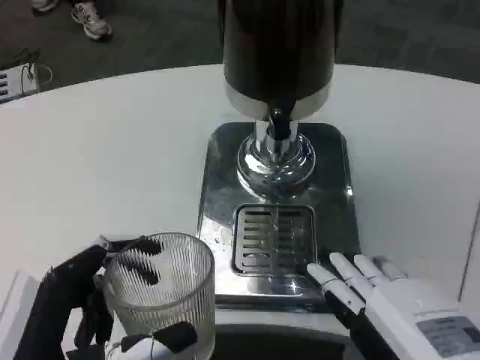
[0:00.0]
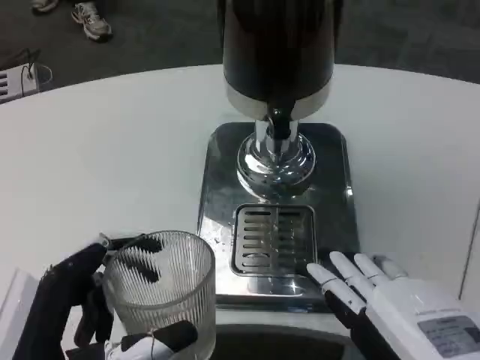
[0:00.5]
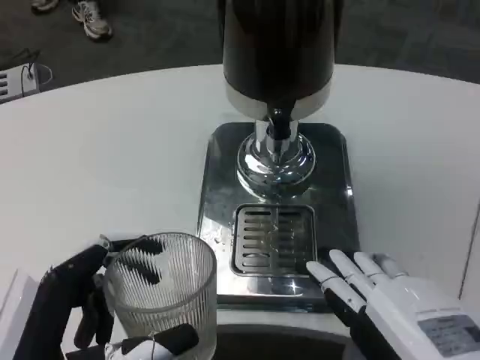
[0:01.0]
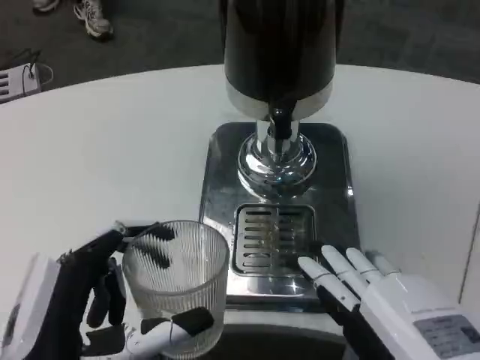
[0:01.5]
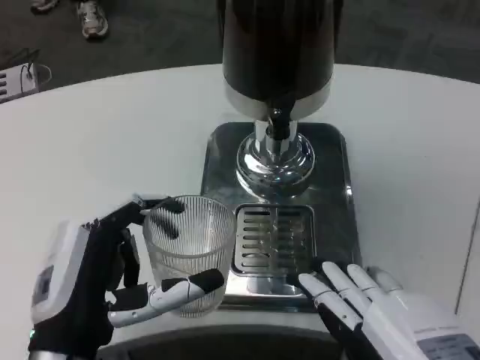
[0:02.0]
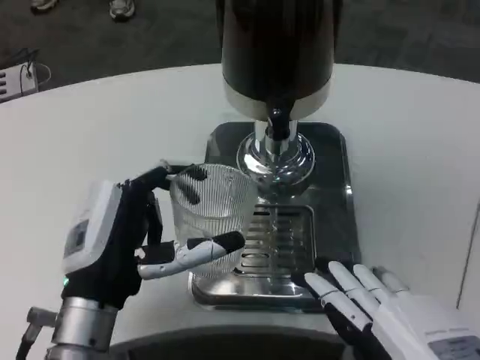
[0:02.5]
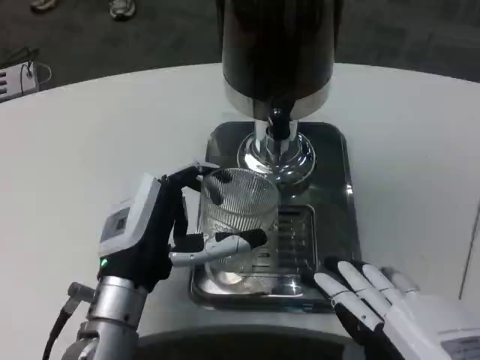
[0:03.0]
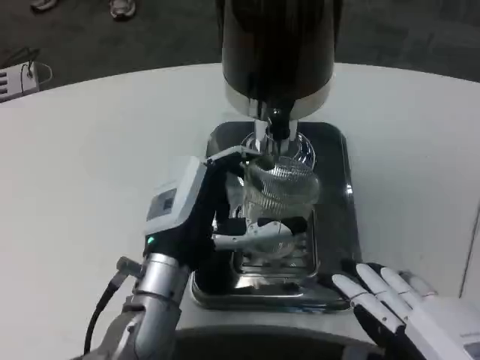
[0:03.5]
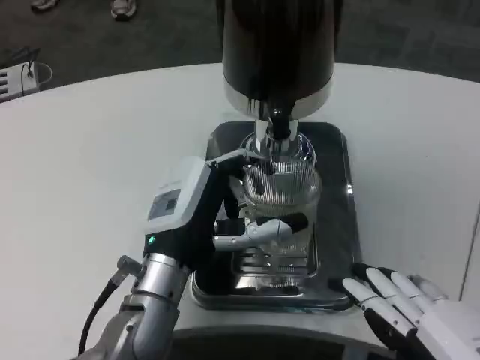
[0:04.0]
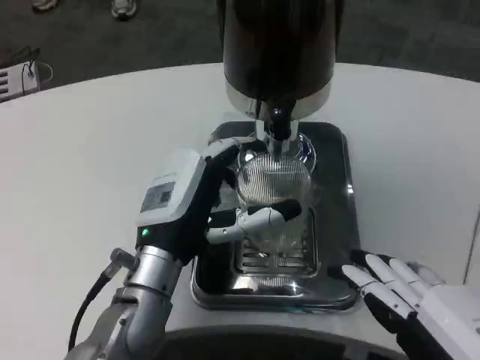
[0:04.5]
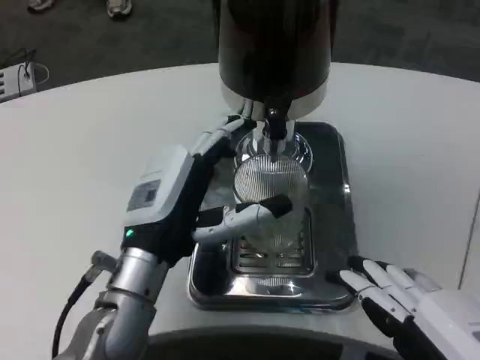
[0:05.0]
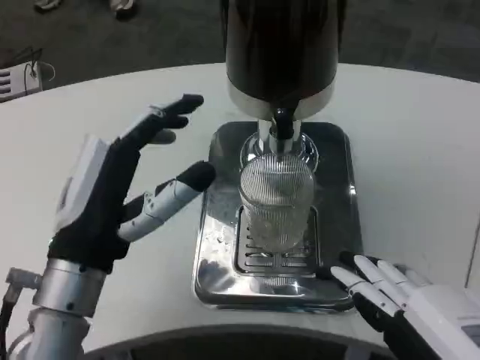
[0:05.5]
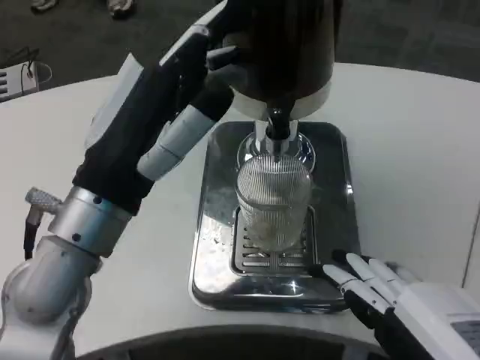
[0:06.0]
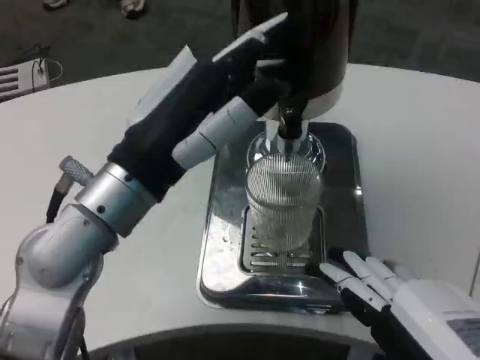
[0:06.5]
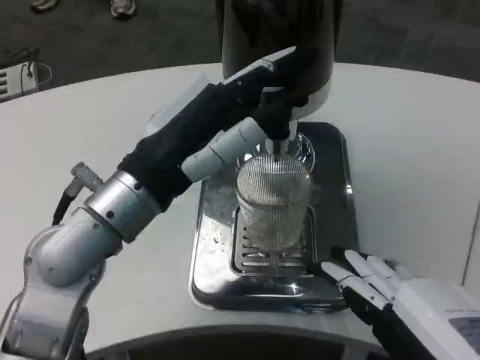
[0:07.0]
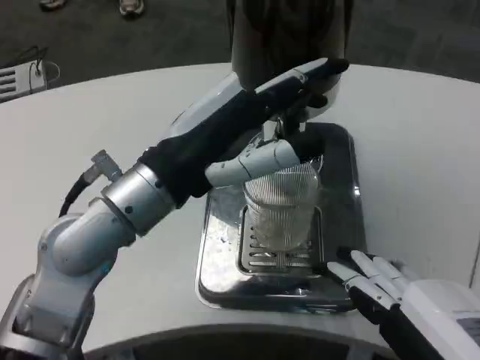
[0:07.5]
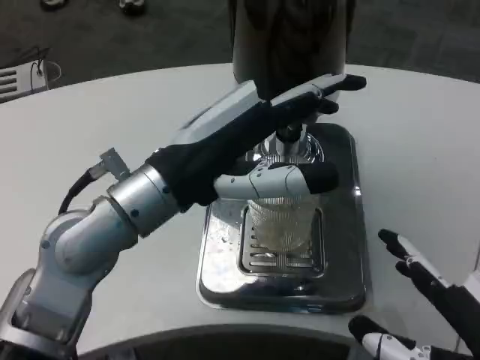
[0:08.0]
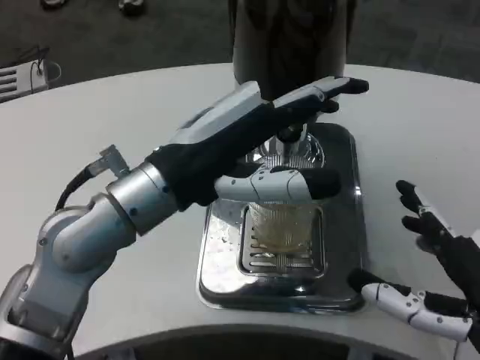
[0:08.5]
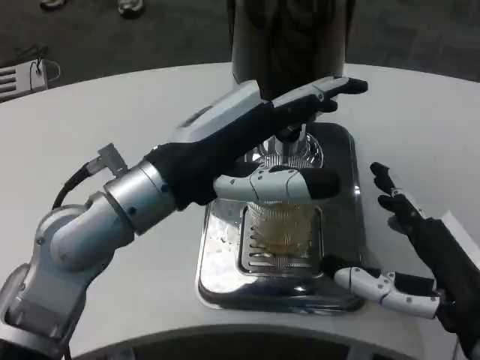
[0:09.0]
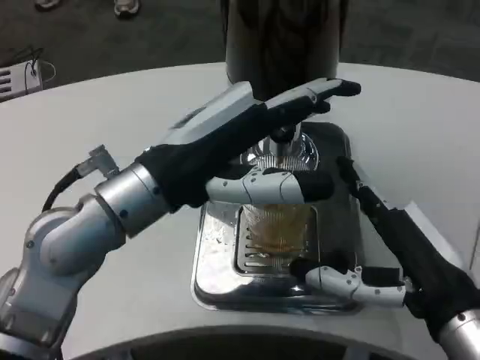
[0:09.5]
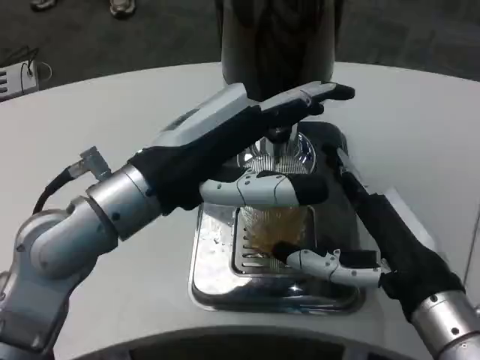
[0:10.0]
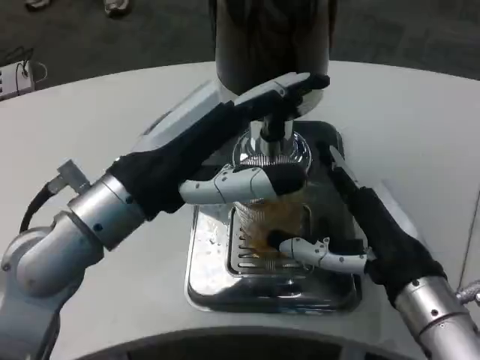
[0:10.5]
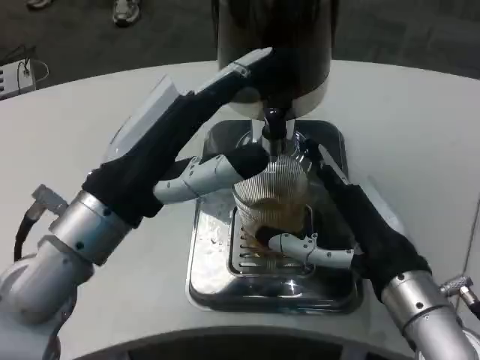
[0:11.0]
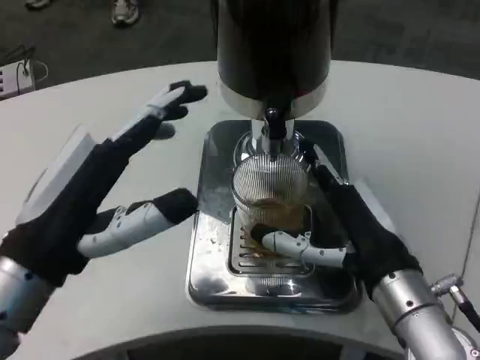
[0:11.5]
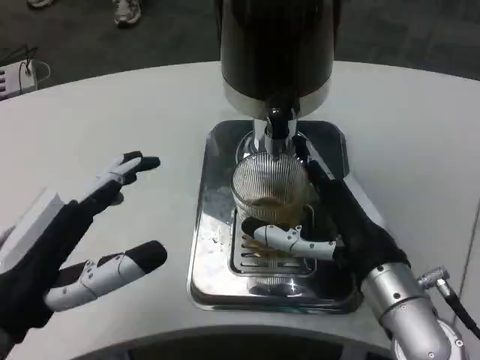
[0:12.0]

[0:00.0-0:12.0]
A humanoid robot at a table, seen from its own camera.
Task of the whole recording: Grasp the cup under the faucet to collect the drink, then remove the cup.
0:00.0 to 0:02.0: The left hand shifts approximately 5 cm forward.
0:02.0 to 0:04.0: The left hand moves forward and to the right, roughly 10 cm.
0:04.0 to 0:06.0: The left hand moves upward and backward, approximately 10 cm.
0:08.0 to 0:10.0: The right hand shifts some 10 cm forward.
0:10.0 to 0:12.0: The right hand changes place by some 5 cm; the left hand goes approximately 15 cm backward, downward and to the left.

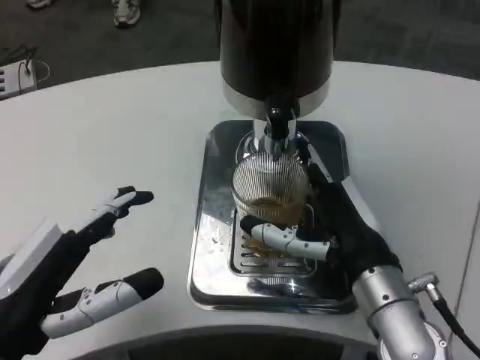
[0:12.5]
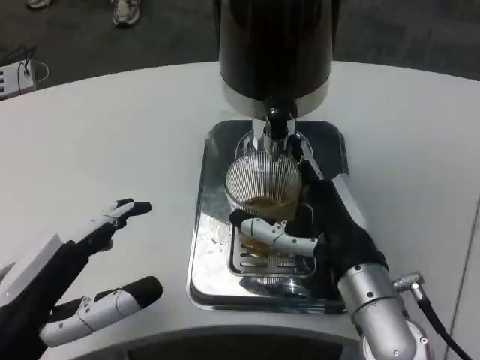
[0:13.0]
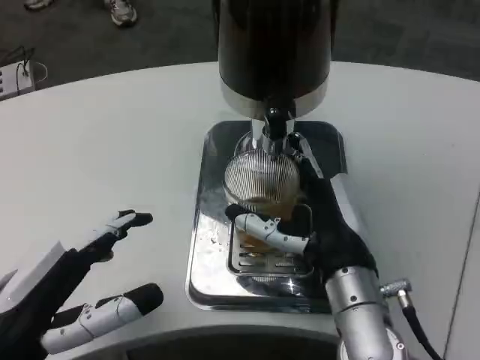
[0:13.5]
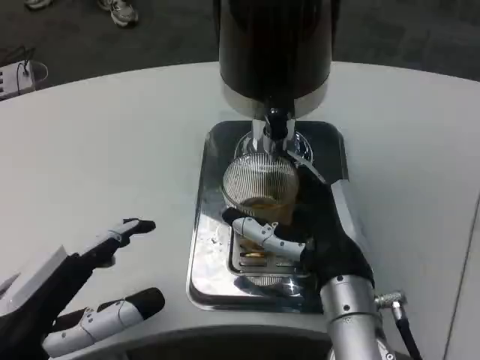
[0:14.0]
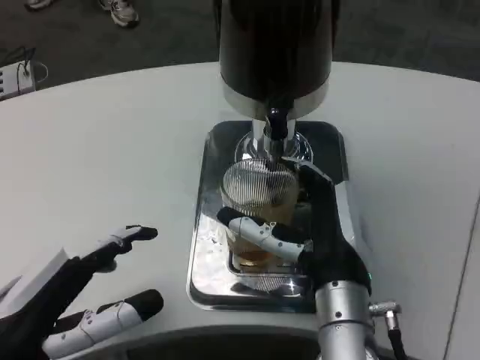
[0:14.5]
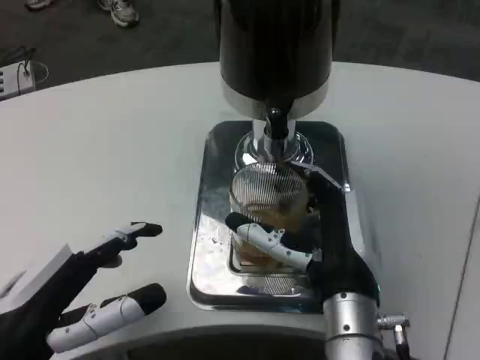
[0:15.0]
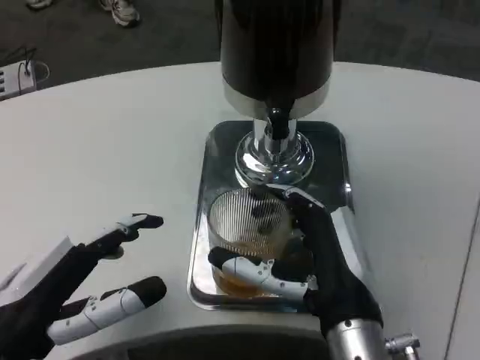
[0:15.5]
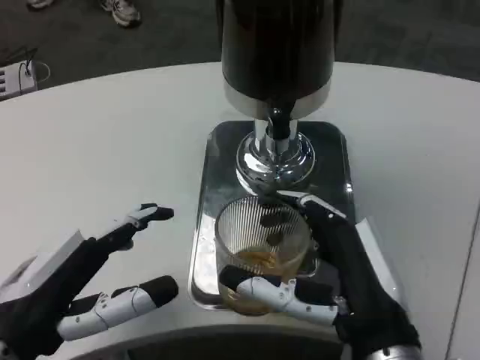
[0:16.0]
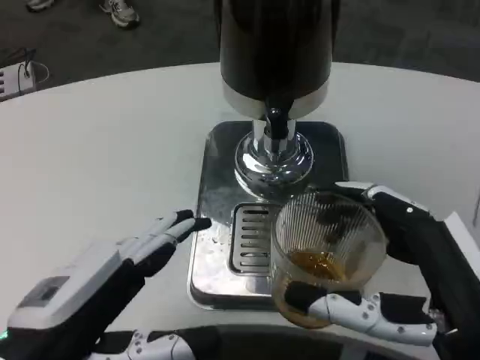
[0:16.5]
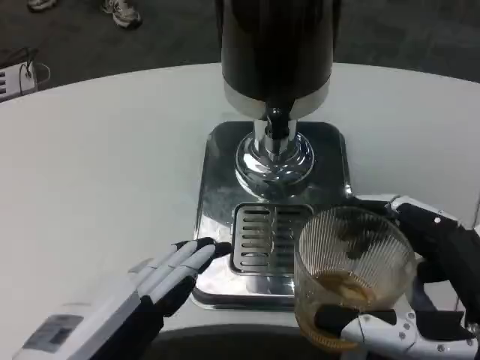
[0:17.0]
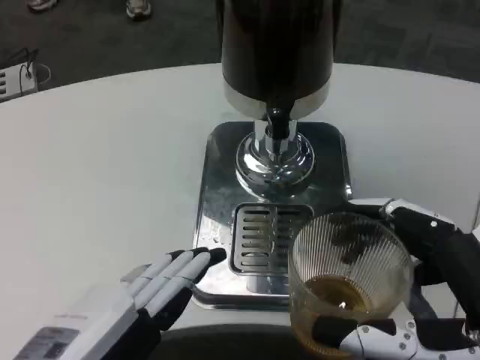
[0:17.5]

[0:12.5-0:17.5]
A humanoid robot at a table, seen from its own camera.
Task of the whole recording: Grasp the cup under the faucet to collect the drink, then remove the cup.
0:12.5 to 0:15.0: The right hand changes place by some 5 cm.
0:15.0 to 0:17.5: The left hand moves backward, roughly 10 cm. The right hand is displaced backward and to the right by some 20 cm.
